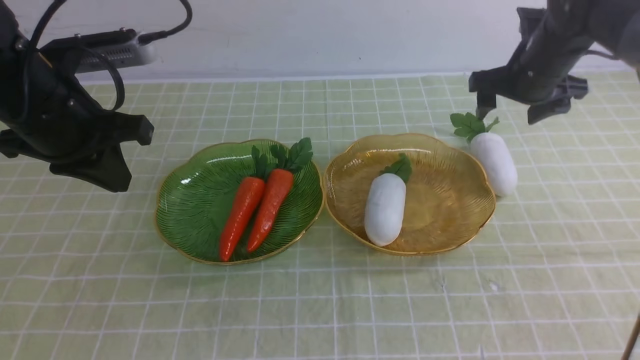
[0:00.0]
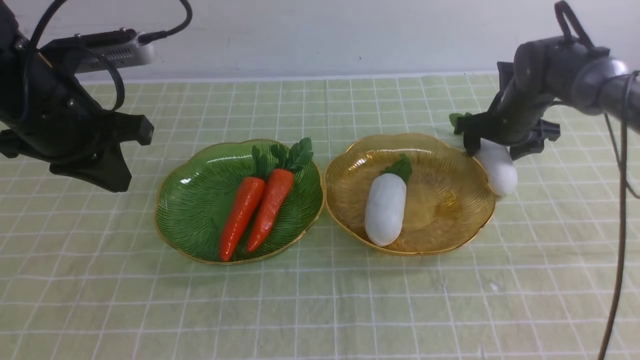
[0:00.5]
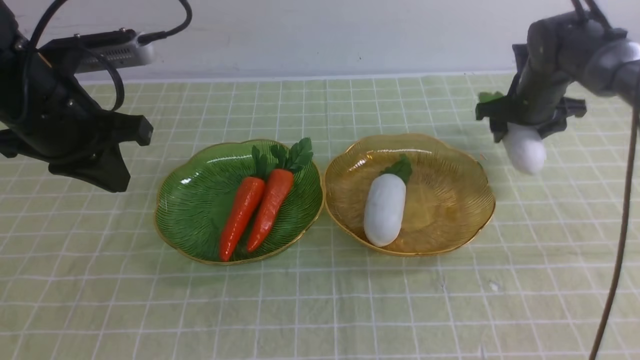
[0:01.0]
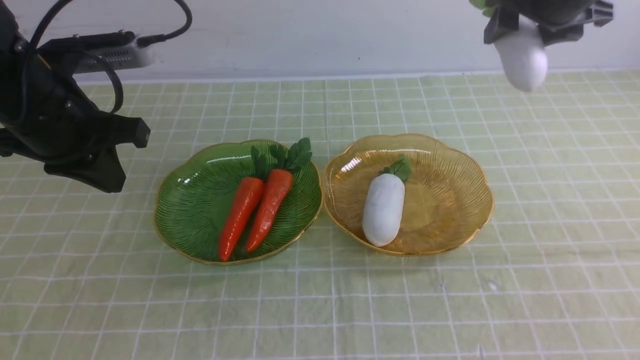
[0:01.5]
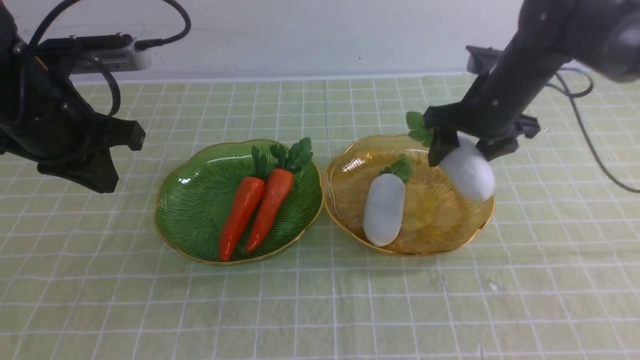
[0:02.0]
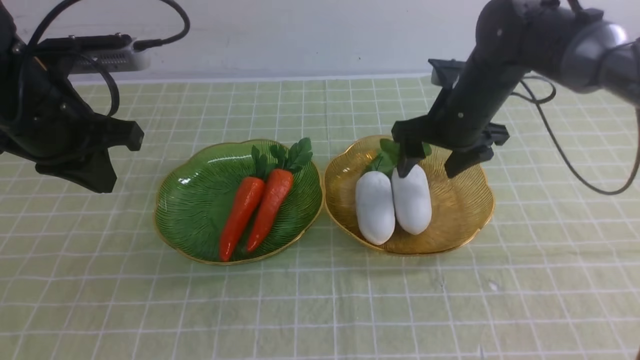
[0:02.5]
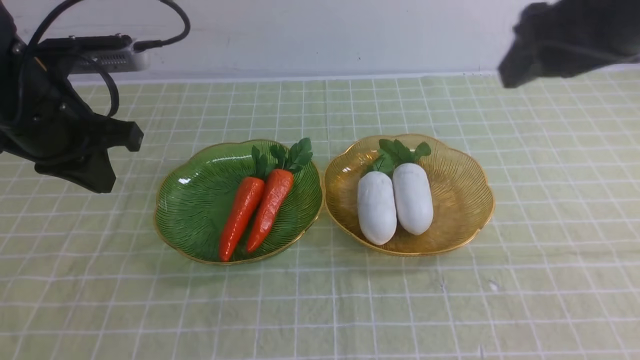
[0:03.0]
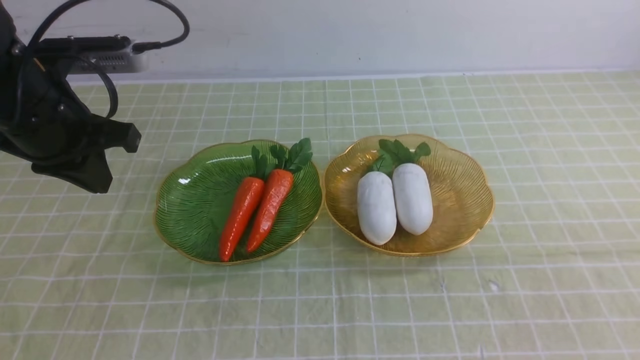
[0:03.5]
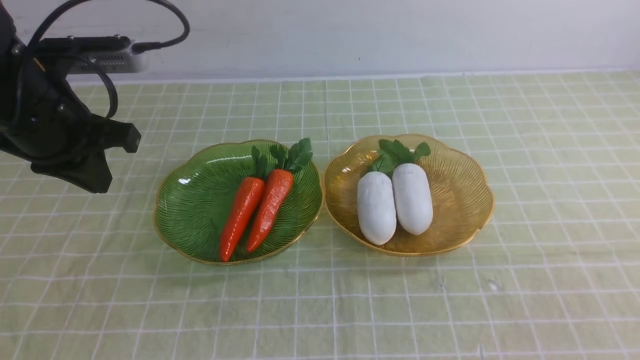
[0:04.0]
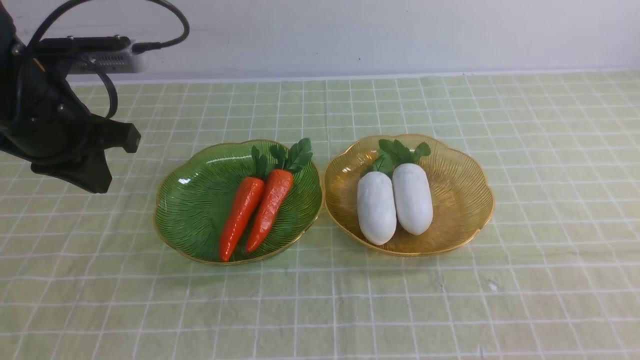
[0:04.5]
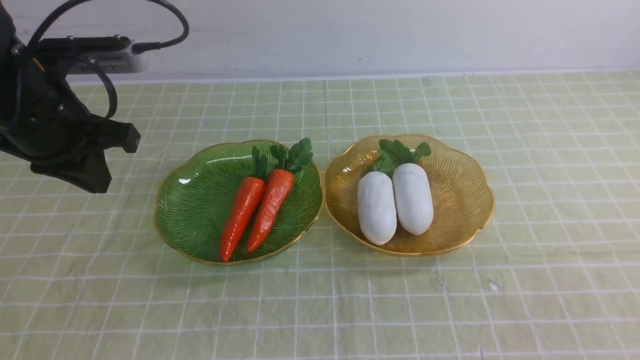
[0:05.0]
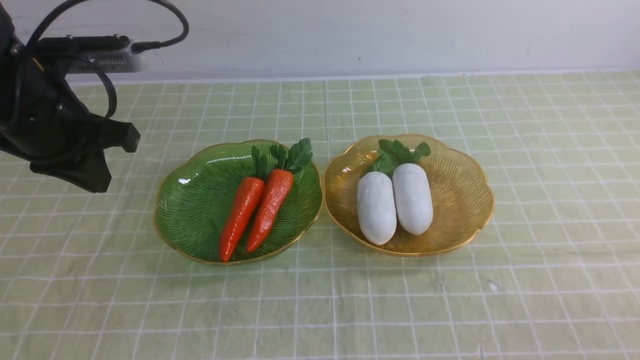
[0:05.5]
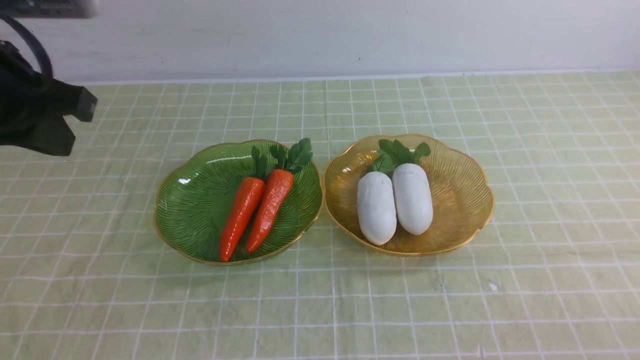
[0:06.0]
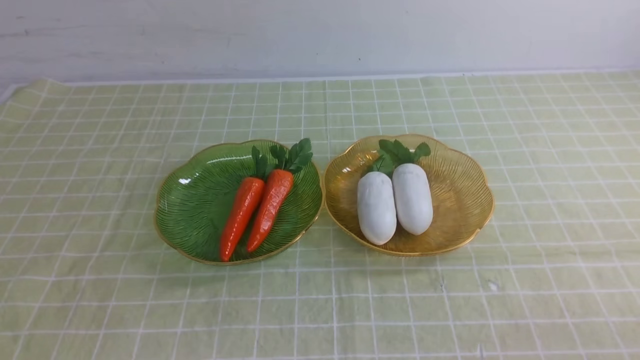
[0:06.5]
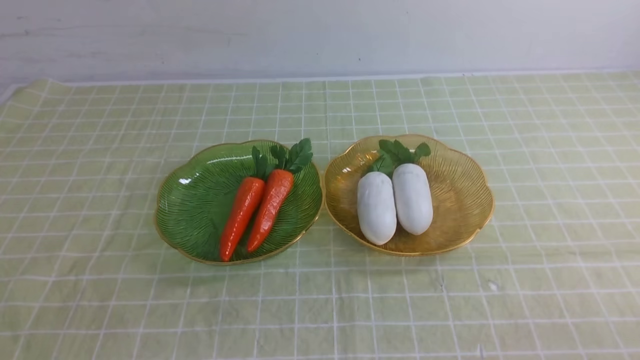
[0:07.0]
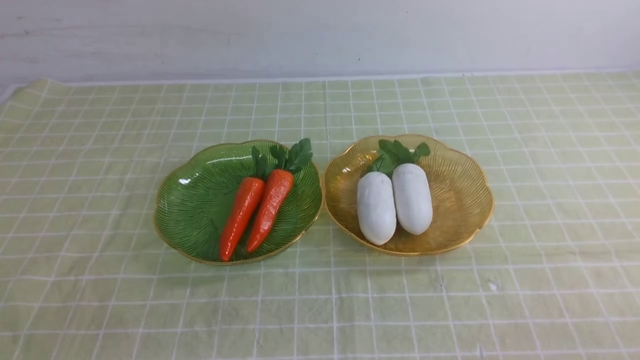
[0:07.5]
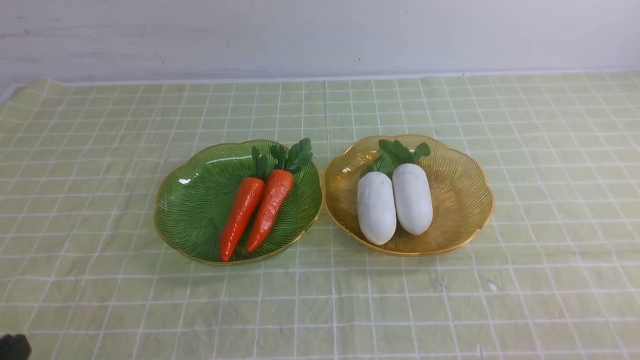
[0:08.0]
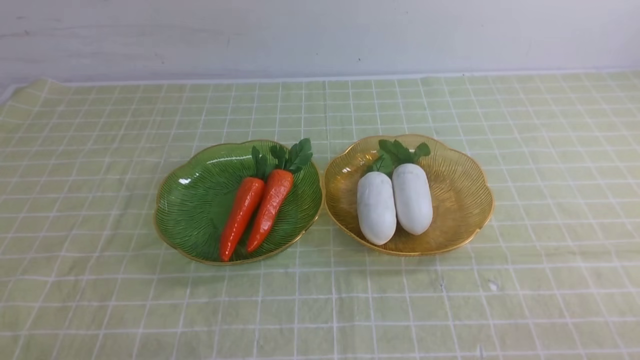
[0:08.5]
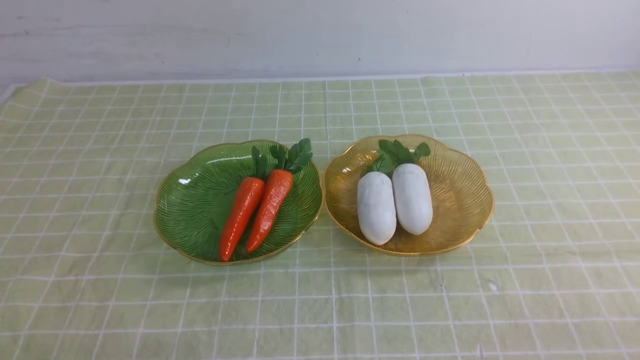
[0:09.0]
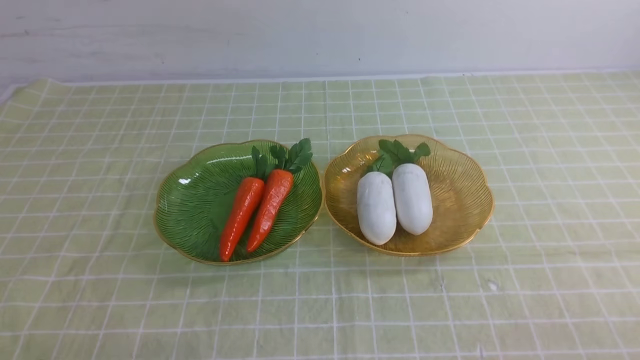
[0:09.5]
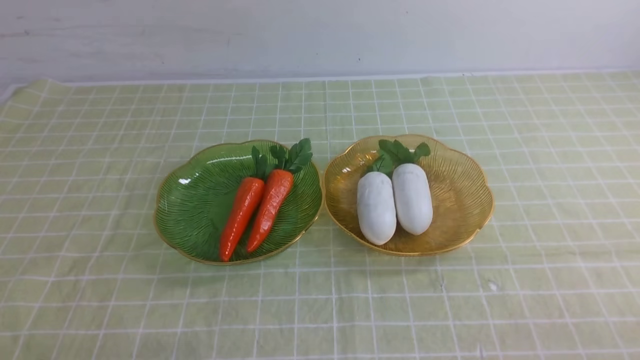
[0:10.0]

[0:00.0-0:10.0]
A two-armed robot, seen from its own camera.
Step, 0:00.0 to 0:03.0: use the right arm to grab a radish and put it into the right plate.
0:00.0 to 0:02.0: The right gripper goes up and down, roughly 15 cm each way, reversing 2 times.
0:02.0 to 0:04.0: The right gripper shifts about 40 cm backward, and closes up.
0:04.0 to 0:06.0: The left gripper travels upward by about 5 cm.
0:06.0 to 0:08.0: The left gripper travels backward and downward by some 30 cm.
